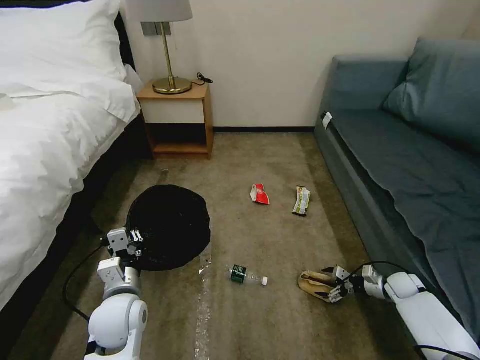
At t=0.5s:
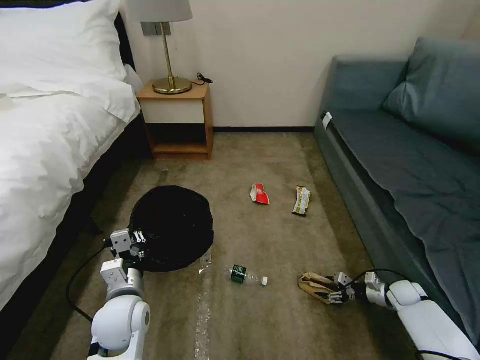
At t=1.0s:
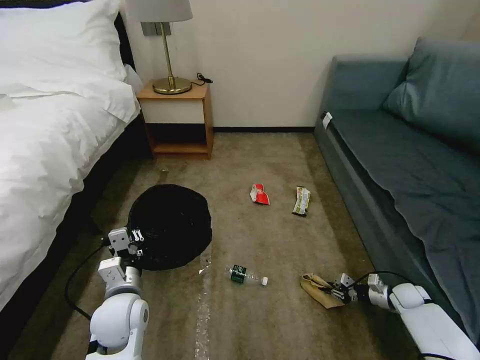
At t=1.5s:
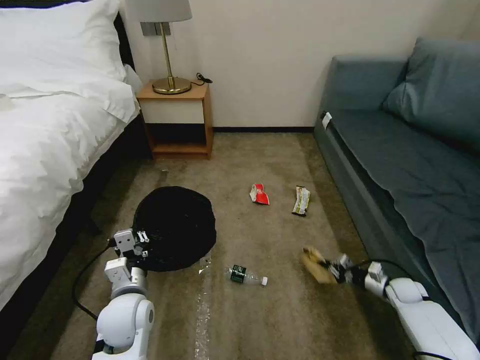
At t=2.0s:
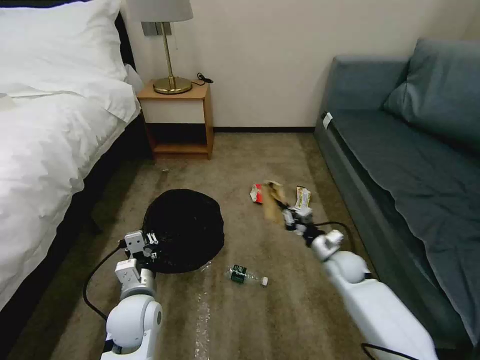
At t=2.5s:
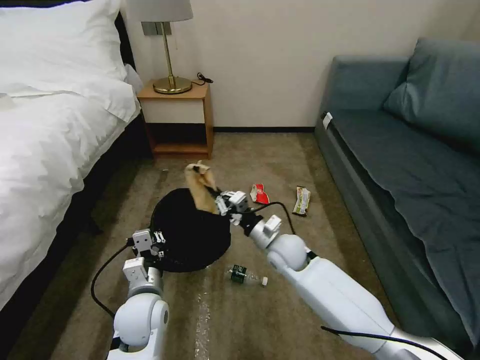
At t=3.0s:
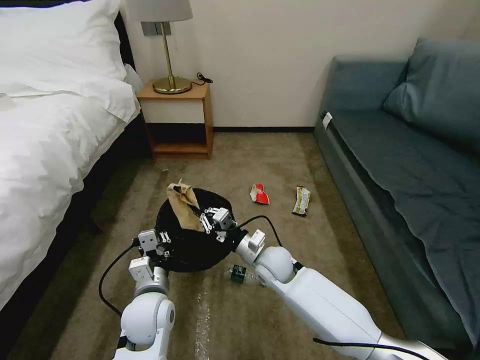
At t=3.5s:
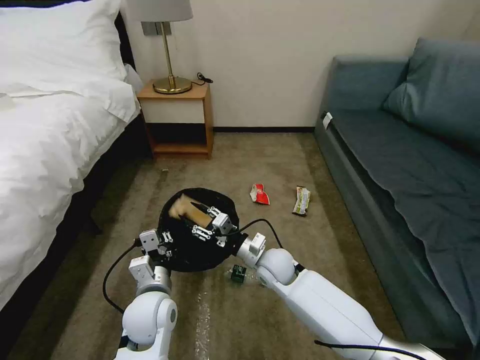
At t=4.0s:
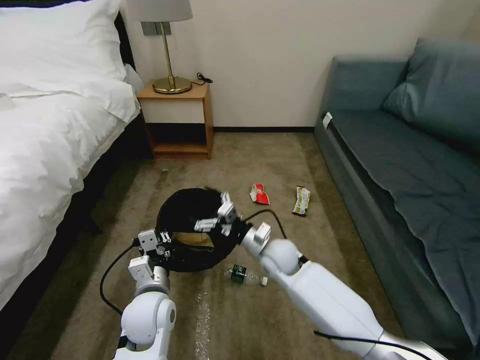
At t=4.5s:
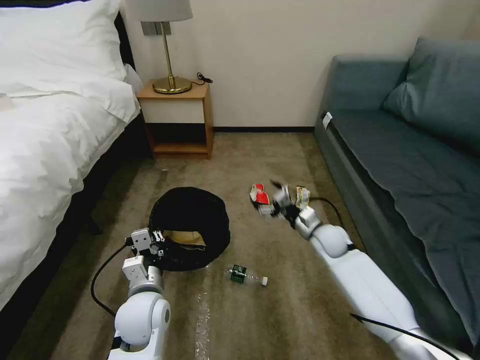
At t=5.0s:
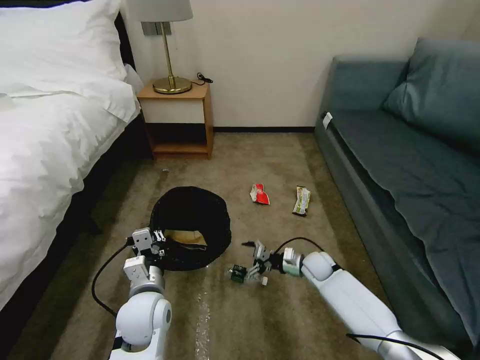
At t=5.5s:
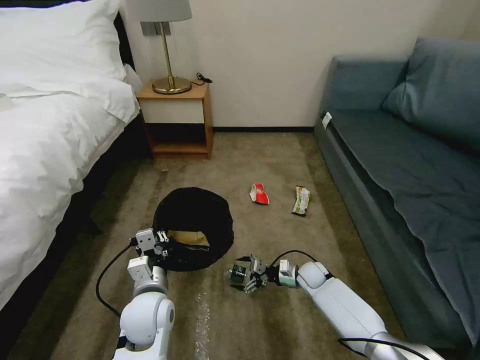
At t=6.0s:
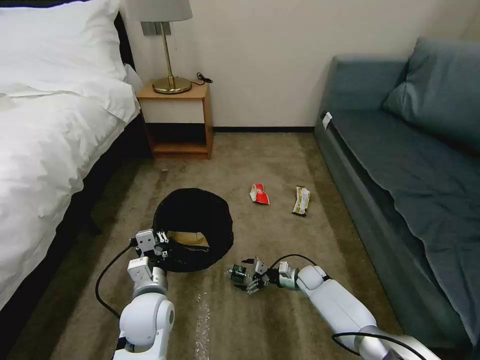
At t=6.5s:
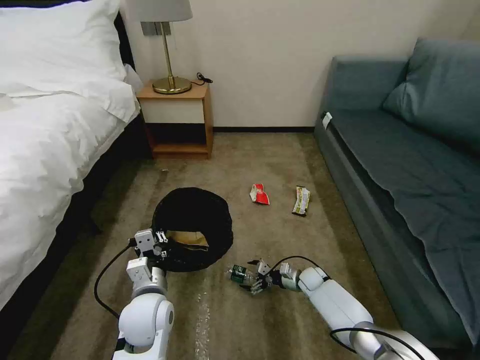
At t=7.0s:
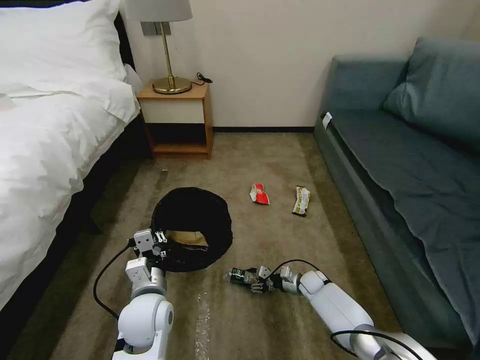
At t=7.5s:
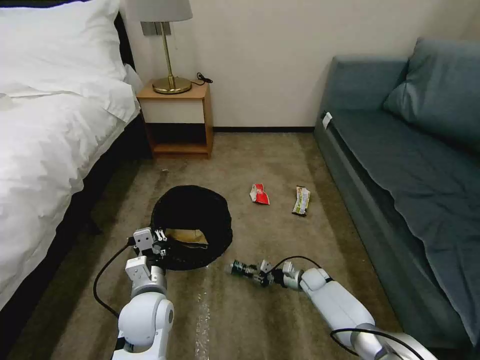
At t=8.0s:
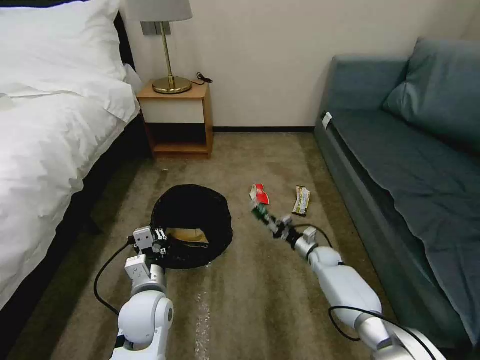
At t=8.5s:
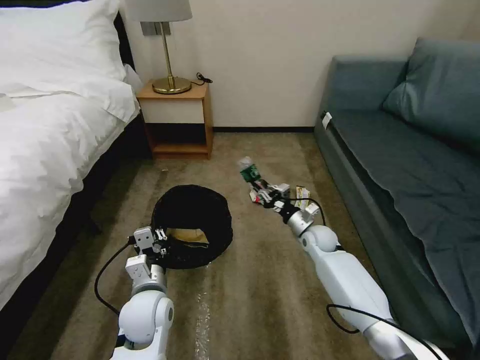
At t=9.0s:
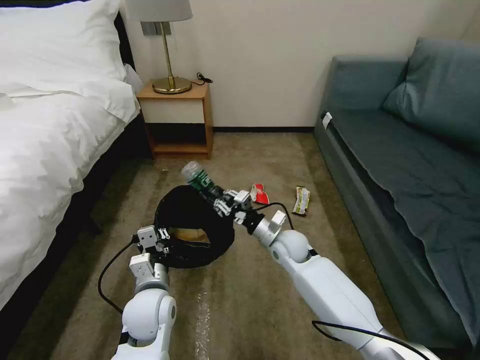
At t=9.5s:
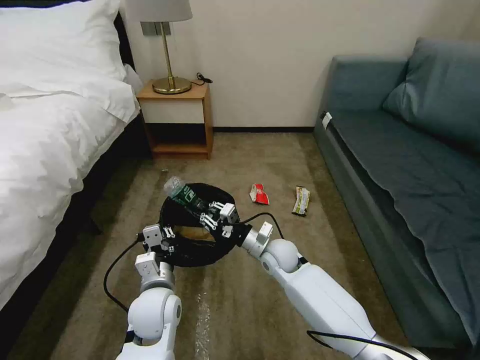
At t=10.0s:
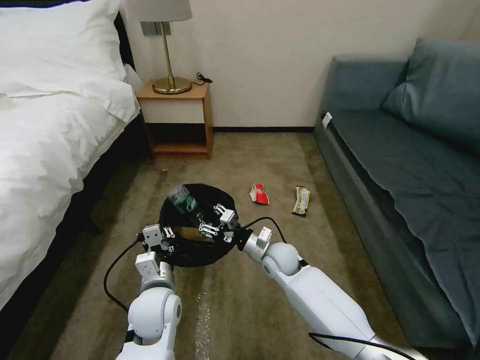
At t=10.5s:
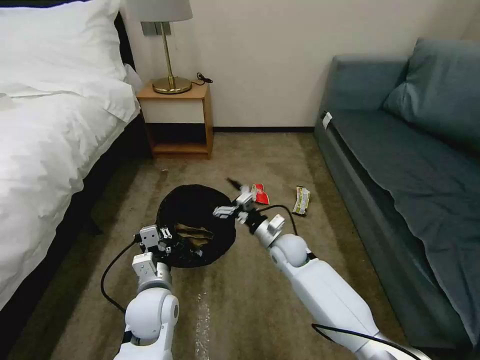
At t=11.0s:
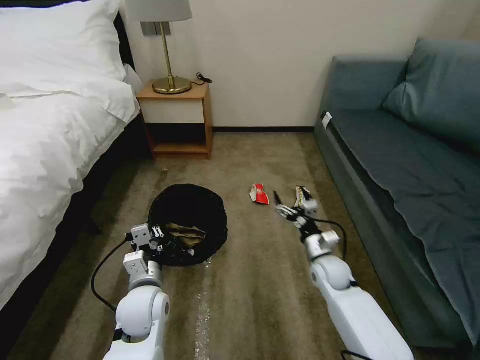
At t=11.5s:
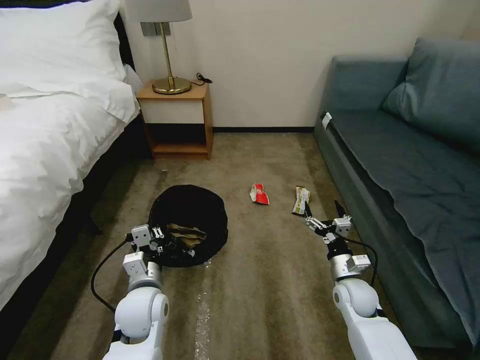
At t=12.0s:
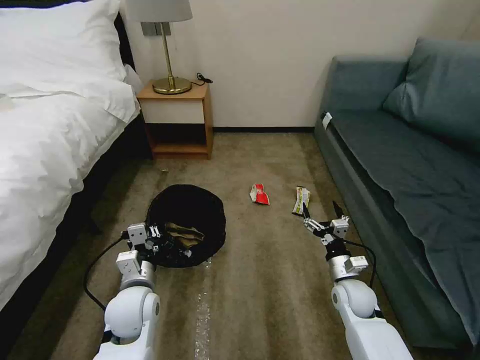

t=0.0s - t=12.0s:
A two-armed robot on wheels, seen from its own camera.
Task of the whole recording: Pick up the trash bin, then pick up the garbage on the floor and place it into the trash bin.
t=0.0s - t=2.0s: The right gripper heads to the left and upward, covering roughly 25 cm, and closes its fingers.
t=2.0s - t=4.0s: The right gripper is displaced to the left by roughly 15 cm, and opens up.
t=4.0s - t=6.0s: The right gripper travels downward and to the right by approximately 25 cm.
t=6.0s - t=8.0s: The right gripper travels forward by some 5 cm, and closes.
t=8.0s - t=10.0s: The right gripper is displaced to the left and upward by some 20 cm, and opens.
t=10.0s - t=12.0s: The right gripper shifts approximately 20 cm to the right and backward, and opens its fingers.

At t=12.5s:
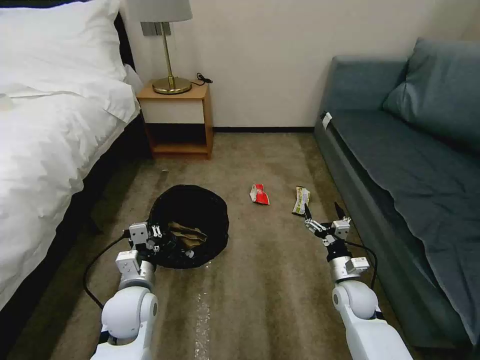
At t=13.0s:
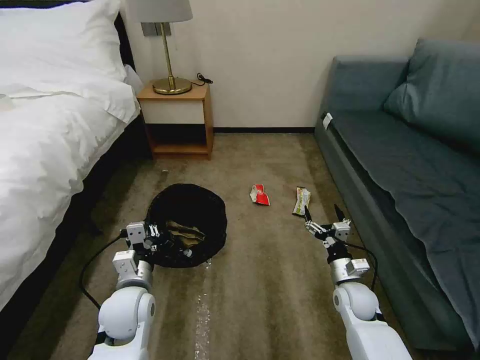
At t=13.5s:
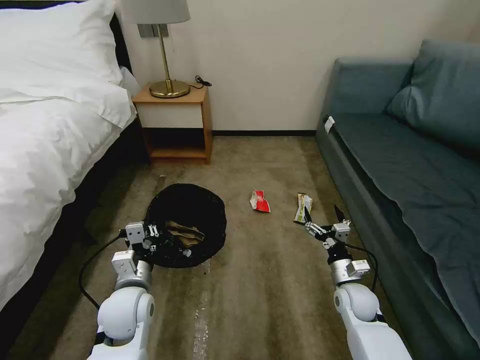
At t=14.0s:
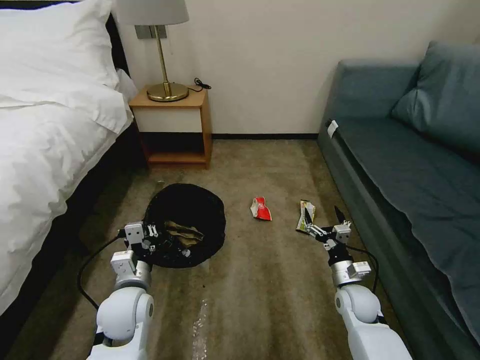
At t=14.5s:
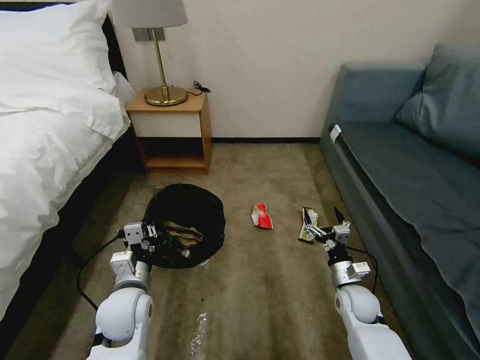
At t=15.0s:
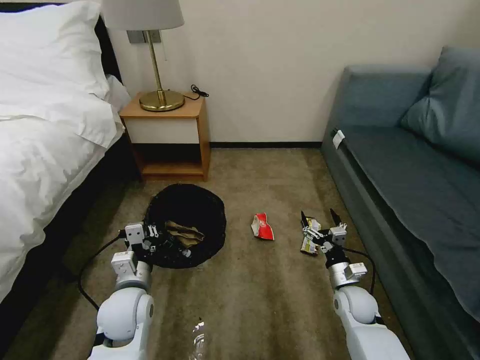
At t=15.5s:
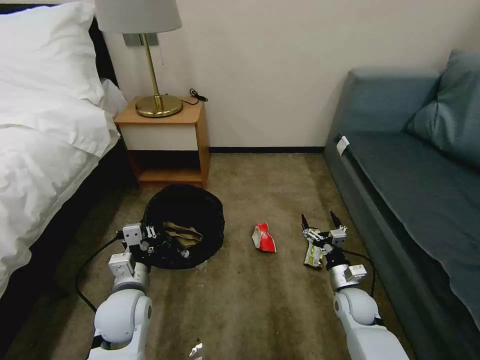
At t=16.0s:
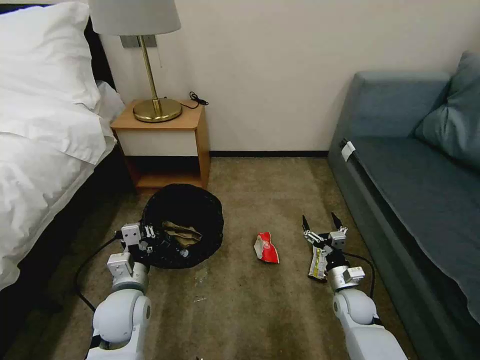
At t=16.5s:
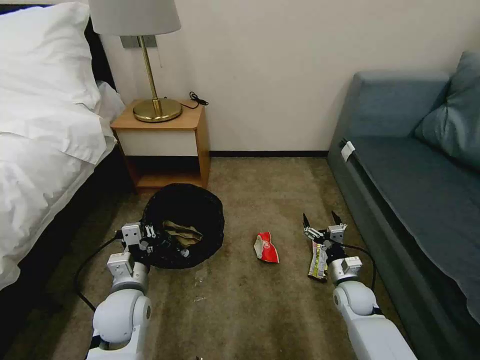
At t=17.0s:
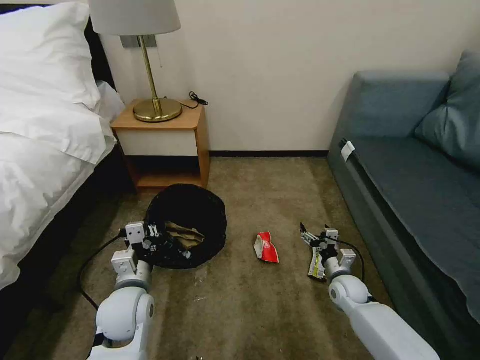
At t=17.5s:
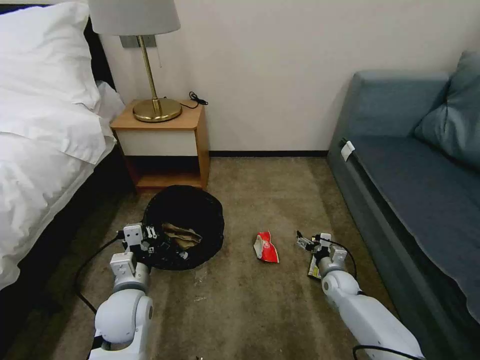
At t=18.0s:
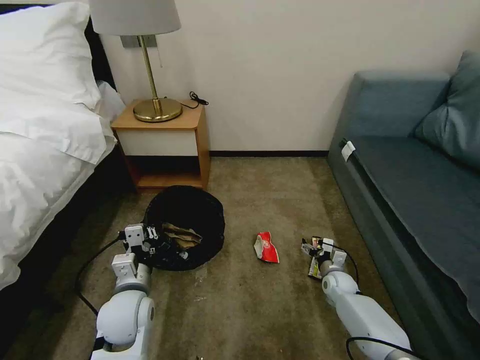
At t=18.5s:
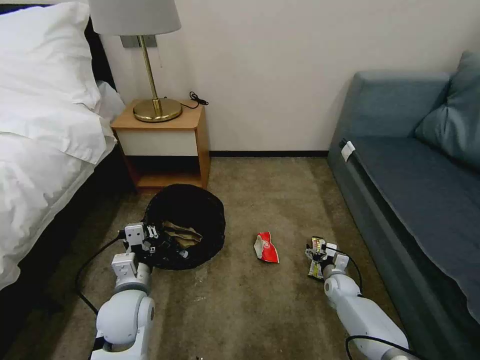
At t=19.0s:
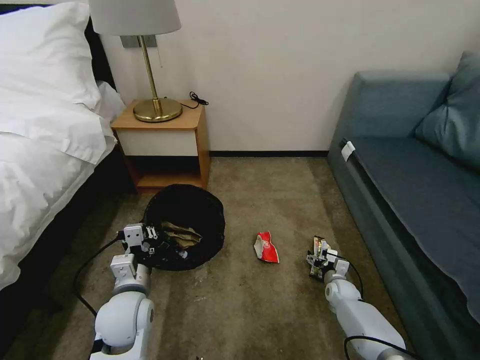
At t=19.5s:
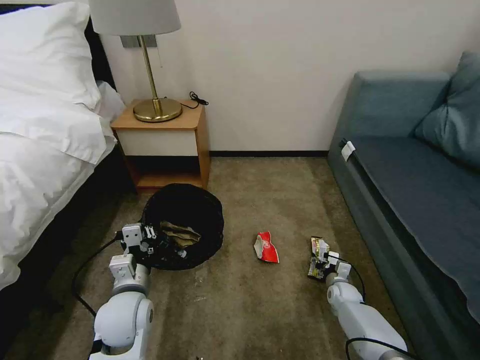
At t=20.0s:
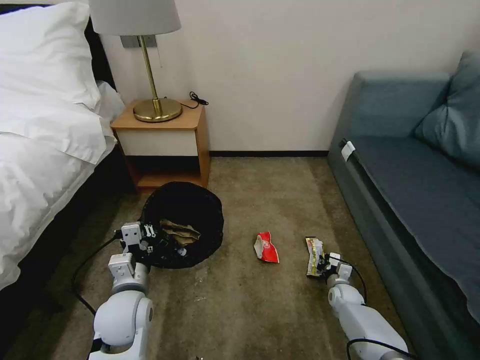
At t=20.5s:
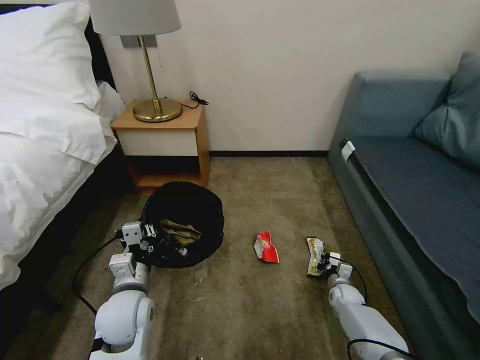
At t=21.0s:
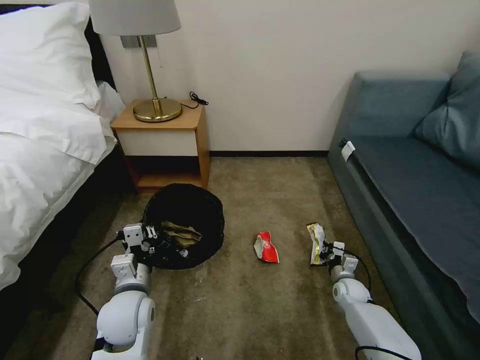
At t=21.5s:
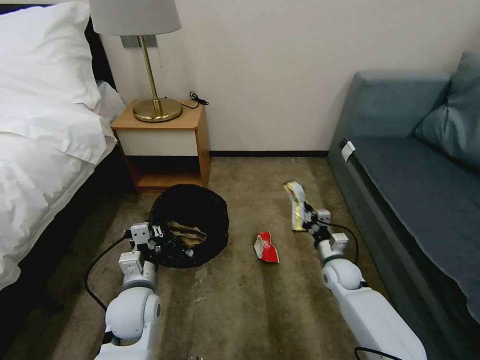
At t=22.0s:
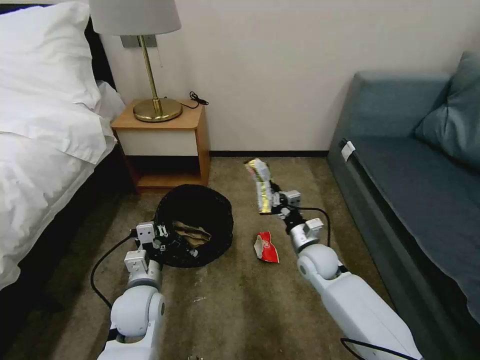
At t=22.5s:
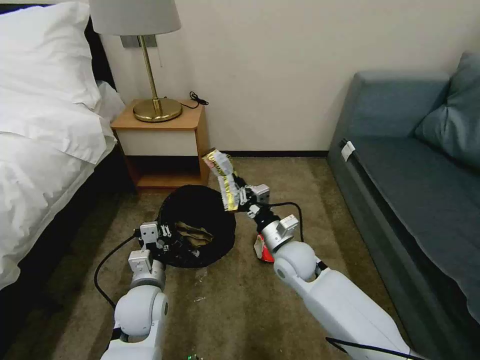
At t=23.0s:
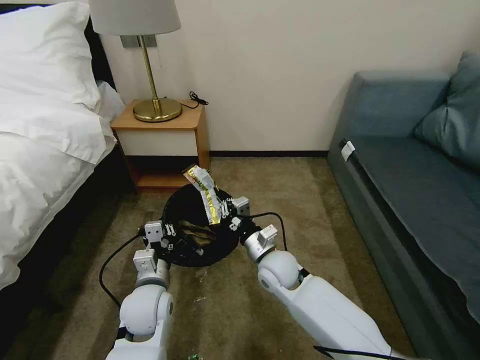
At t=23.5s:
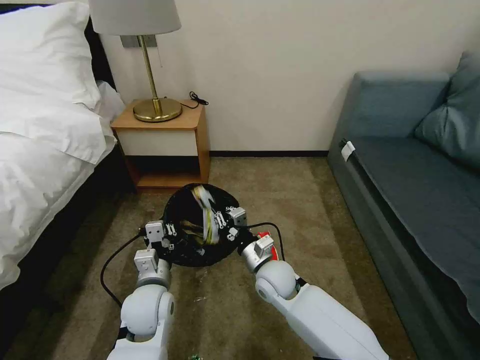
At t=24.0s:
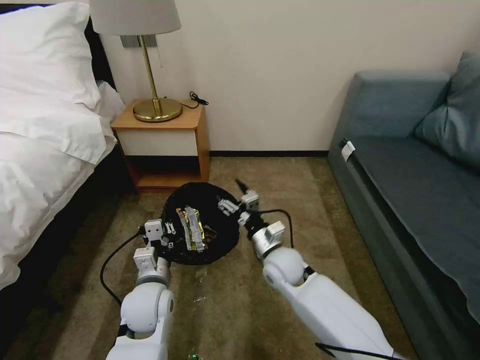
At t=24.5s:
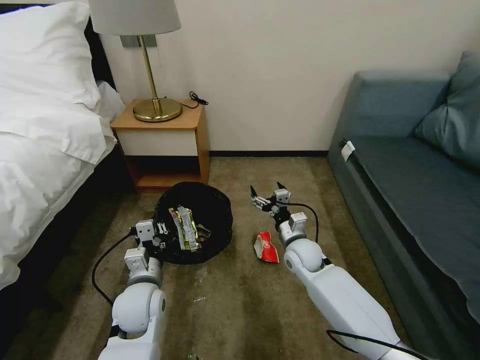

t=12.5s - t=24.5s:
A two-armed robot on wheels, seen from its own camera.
Task of the whole recording: Pick up the trash bin, then pick up the garbage on the floor and place it into the trash bin.
t=12.5s - t=14.5s: The grippers stay close to where they were, moving slightly.
t=16.5s - t=18.5s: The right gripper heads downward and forward, covering some 10 cm.
t=18.5s - t=20.5s: The right gripper closes its fingers.
t=20.5s - t=22.5s: The right gripper is displaced upward and to the left by some 35 cm.
t=22.5s - t=24.5s: The right gripper shifts by roughly 10 cm, and opens its fingers.

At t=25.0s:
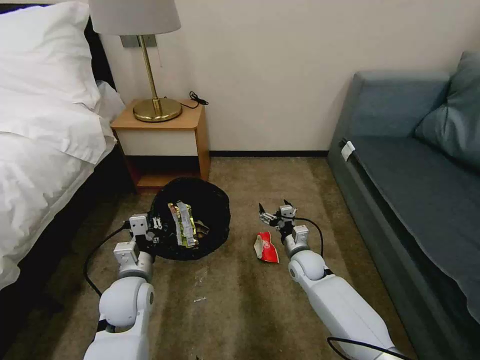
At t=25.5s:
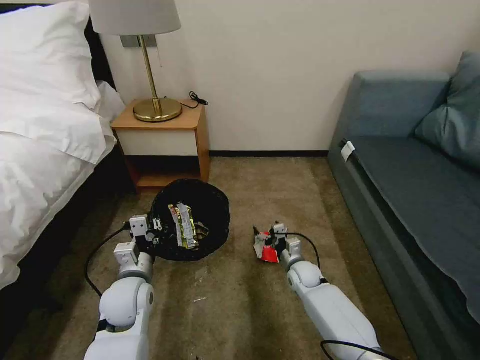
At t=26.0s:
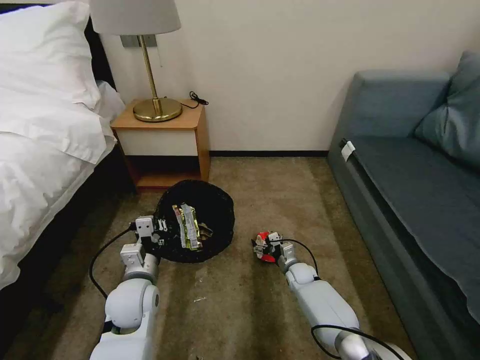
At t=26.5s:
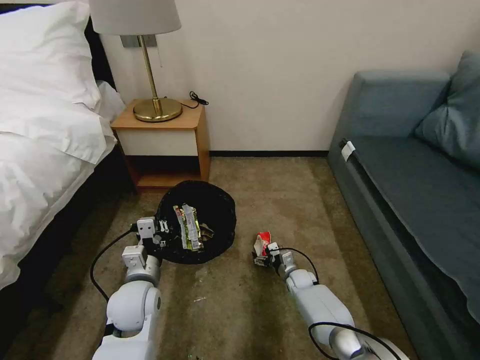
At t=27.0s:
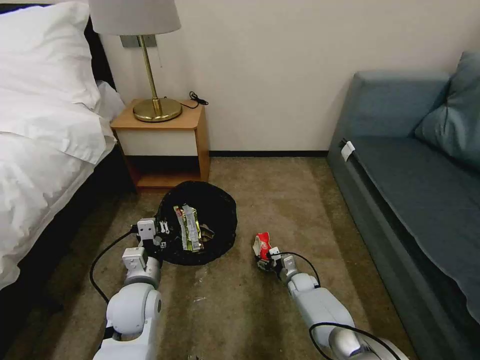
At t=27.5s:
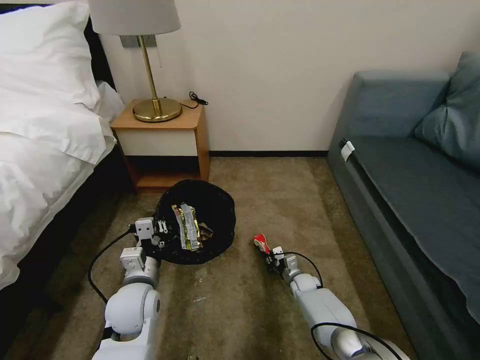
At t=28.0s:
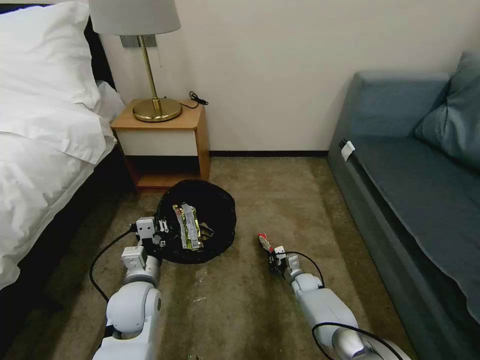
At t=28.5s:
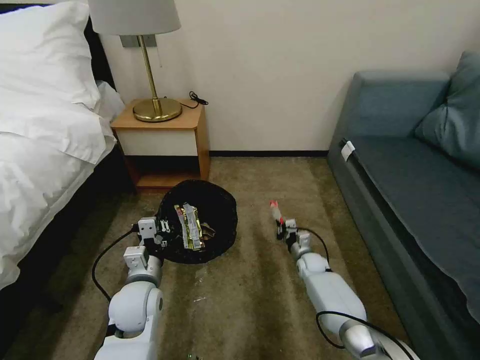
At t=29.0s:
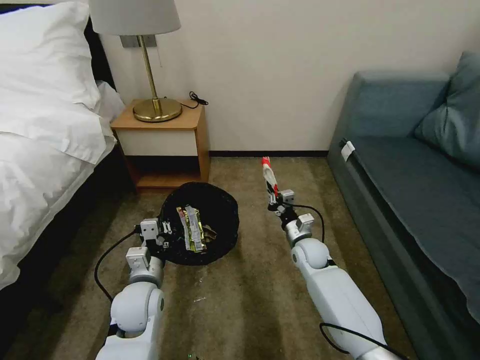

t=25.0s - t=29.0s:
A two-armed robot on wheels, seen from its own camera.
Task of the whole recording: Pick up the trash bin, then pick up the garbage on the floor and place it into the trash bin.
t=25.0s - t=27.0s: The right gripper is displaced downward by approximately 15 cm.
t=27.0s - t=29.0s: The right gripper is displaced upward by roughly 20 cm, and closes up.
